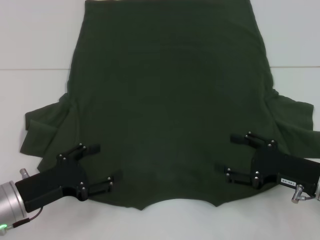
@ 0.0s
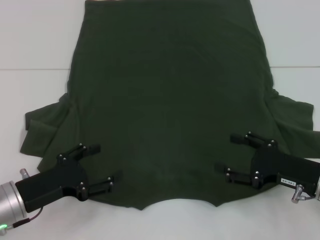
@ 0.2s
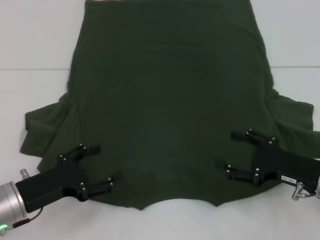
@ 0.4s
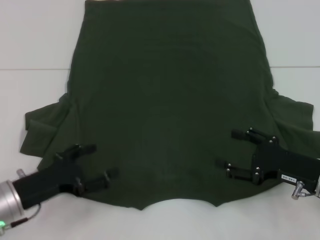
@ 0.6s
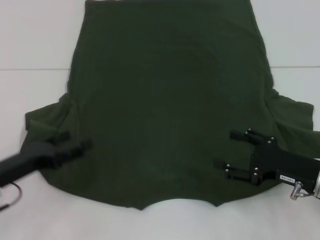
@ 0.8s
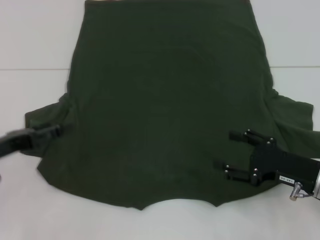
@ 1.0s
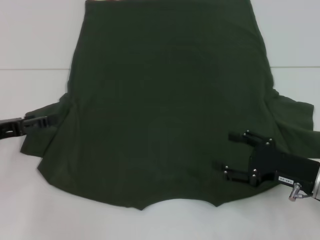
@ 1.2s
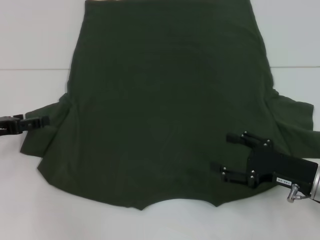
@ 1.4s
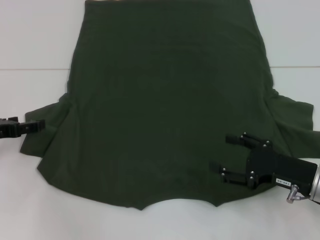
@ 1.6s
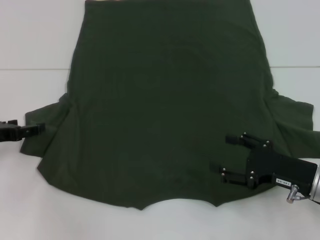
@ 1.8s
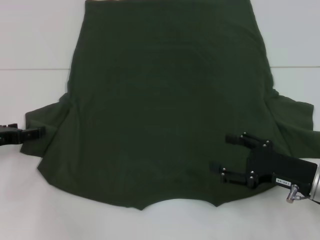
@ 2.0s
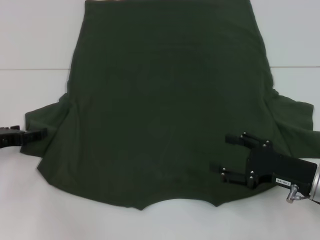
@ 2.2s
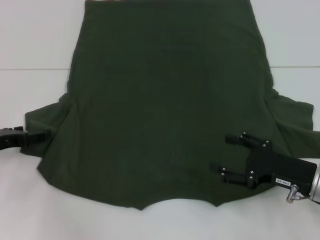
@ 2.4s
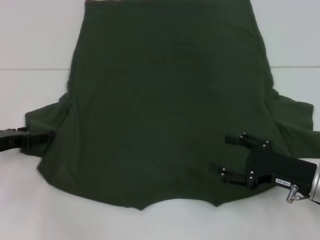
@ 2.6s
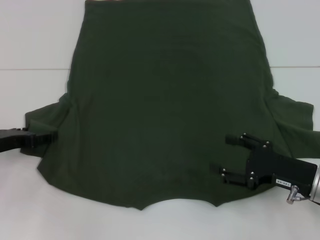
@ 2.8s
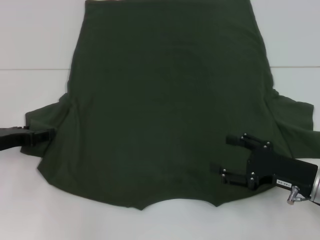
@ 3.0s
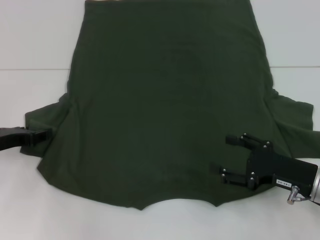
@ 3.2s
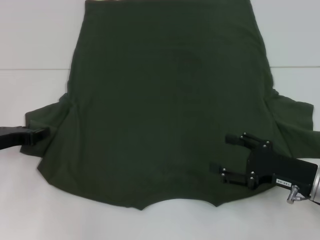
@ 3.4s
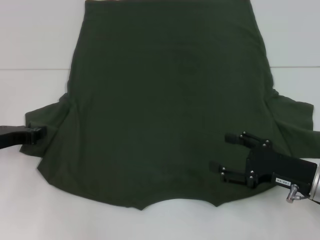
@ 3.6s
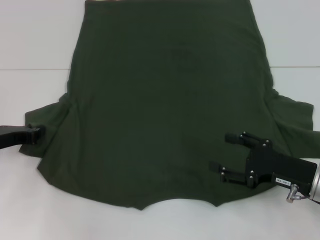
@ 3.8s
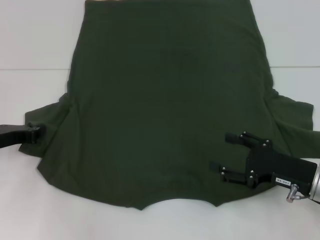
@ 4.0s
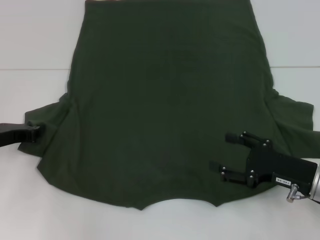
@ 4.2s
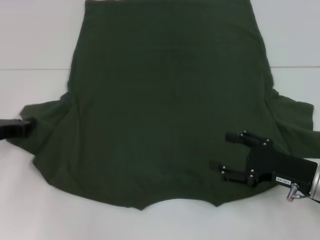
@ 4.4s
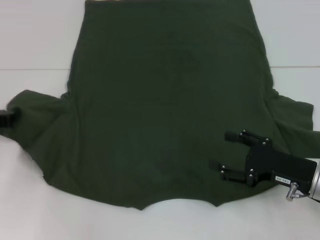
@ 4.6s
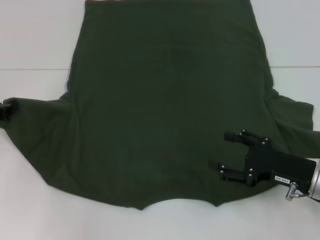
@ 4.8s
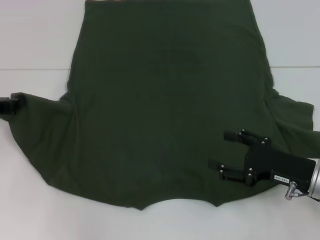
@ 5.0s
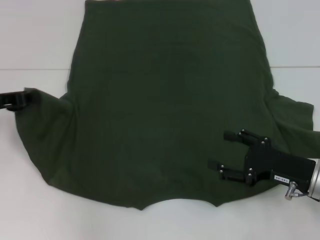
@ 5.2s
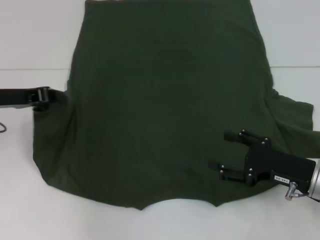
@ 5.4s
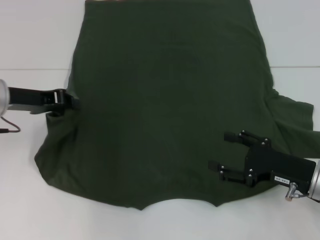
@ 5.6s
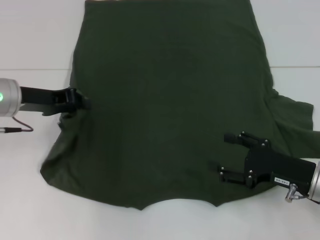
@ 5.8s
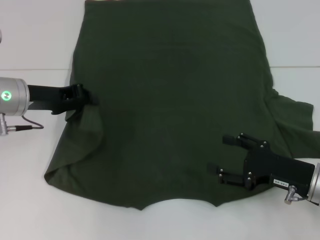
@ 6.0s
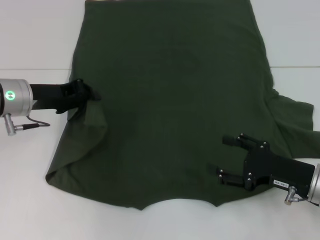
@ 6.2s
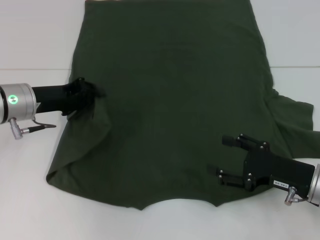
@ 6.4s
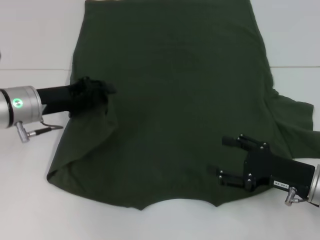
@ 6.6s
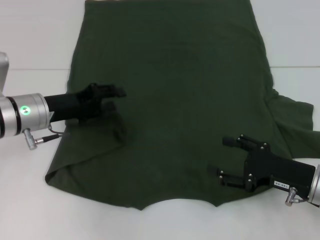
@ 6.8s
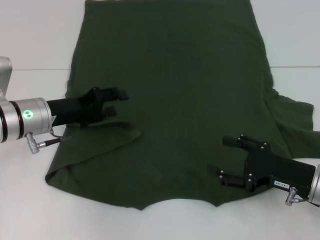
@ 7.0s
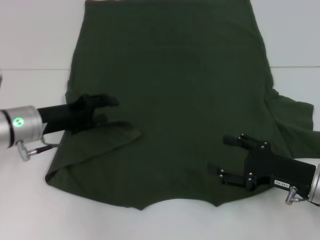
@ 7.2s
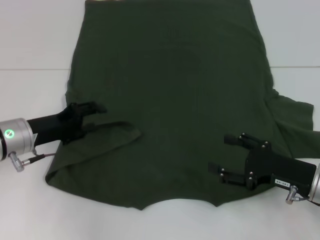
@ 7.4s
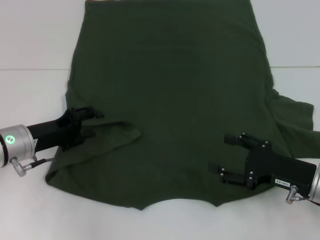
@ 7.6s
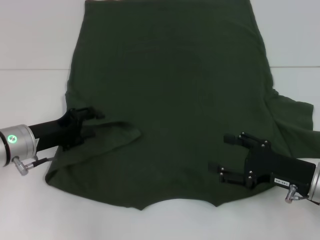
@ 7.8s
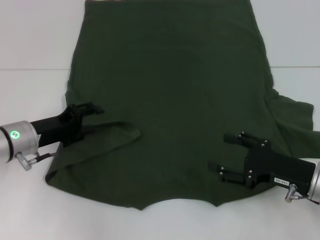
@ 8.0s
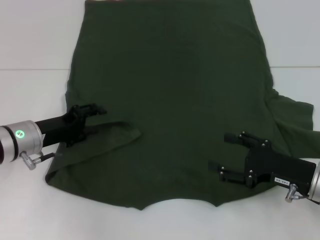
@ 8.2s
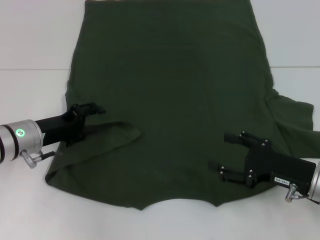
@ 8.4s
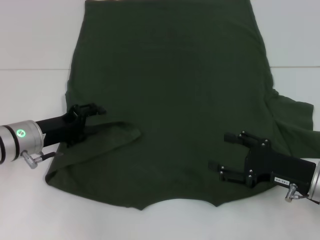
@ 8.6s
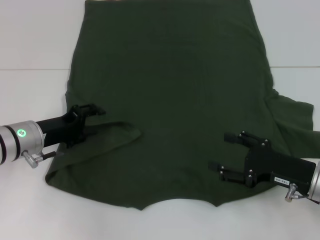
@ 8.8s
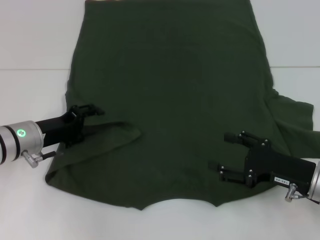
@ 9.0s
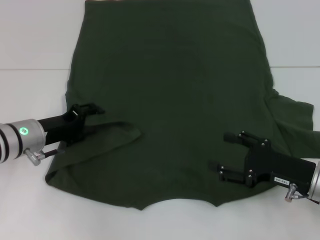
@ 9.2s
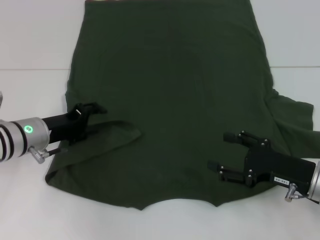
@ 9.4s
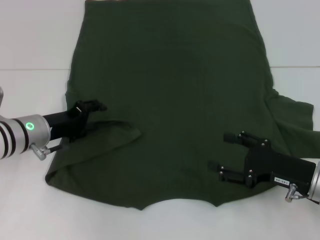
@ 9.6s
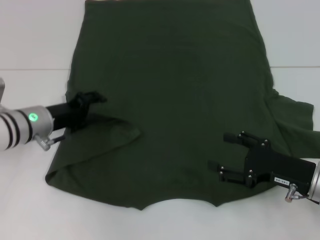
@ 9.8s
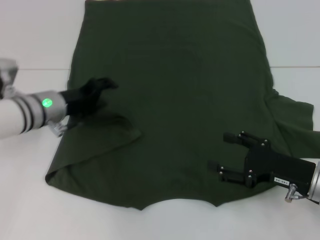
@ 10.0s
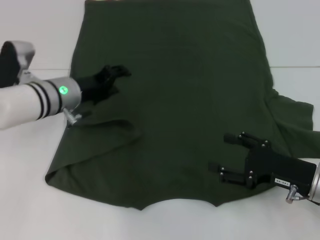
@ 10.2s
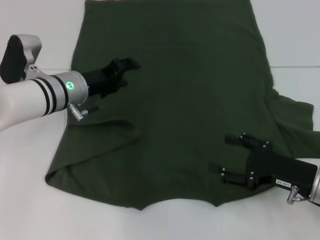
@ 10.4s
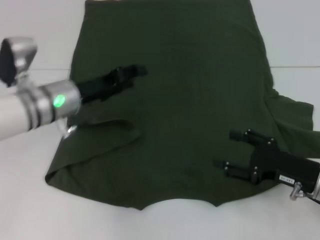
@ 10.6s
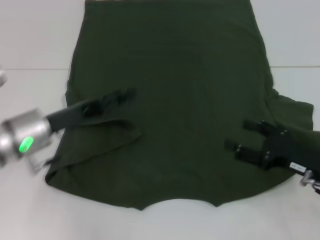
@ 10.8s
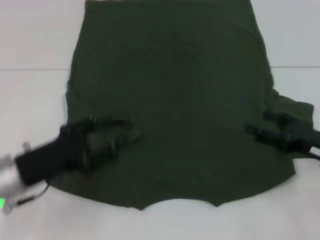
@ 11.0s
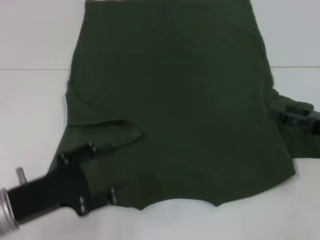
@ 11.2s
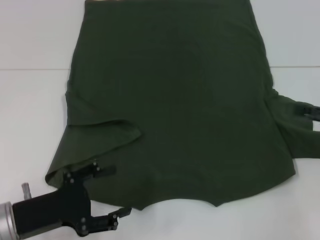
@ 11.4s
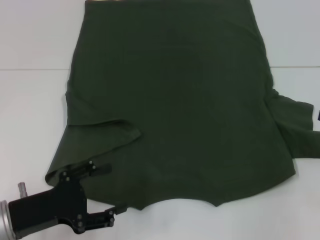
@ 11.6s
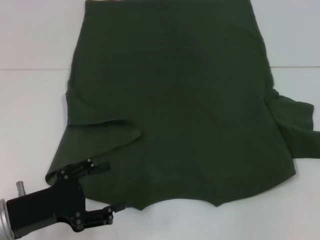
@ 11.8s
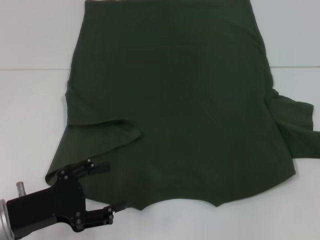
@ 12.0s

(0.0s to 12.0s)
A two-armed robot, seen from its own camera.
Step, 0.0s - 10.0s: Fold the bottom left sleeve with your left hand.
0.0s - 1.6s: The left gripper heads to the left and forward, covering some 10 cm.
1.6s - 3.0s: The grippers make only small movements.
3.0s - 4.4s: The left gripper closes up.
4.4s - 6.0s: The left gripper moves to the right and upward, about 10 cm.
6.0s - 7.6s: The left gripper travels downward by approximately 10 cm, and opens its fingers.
7.6s - 9.0s: The grippers make only small movements.
9.0s - 10.4s: The left gripper shifts approximately 10 cm to the right and forward.
10.4s - 12.0s: The left gripper heads backward, covering approximately 20 cm. Meanwhile the right gripper goes approximately 20 cm to the right, upward and forward.

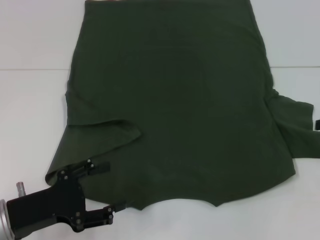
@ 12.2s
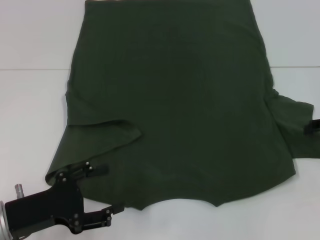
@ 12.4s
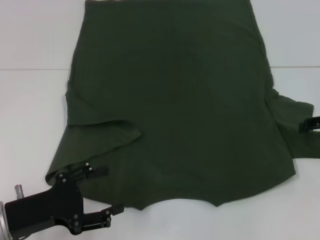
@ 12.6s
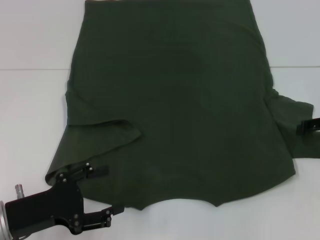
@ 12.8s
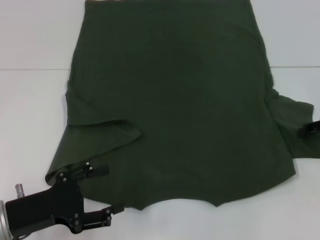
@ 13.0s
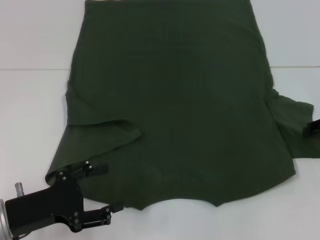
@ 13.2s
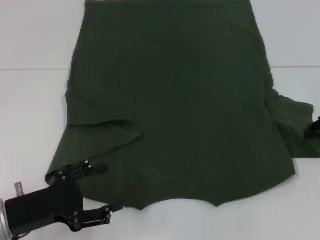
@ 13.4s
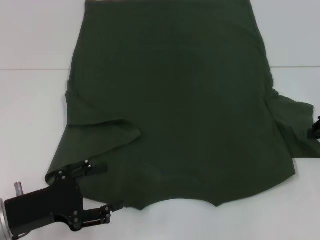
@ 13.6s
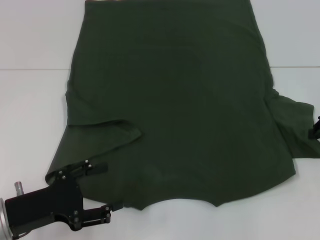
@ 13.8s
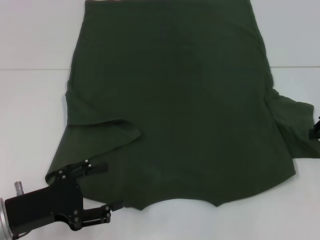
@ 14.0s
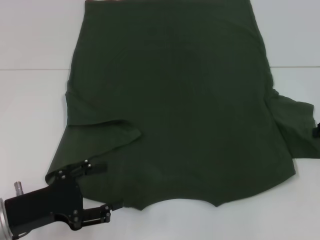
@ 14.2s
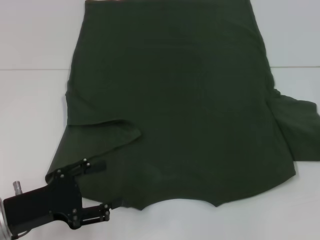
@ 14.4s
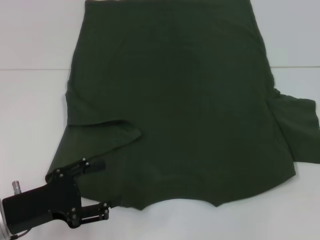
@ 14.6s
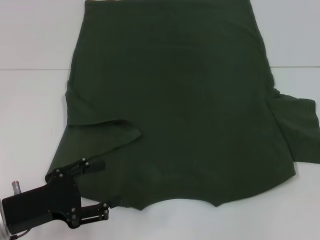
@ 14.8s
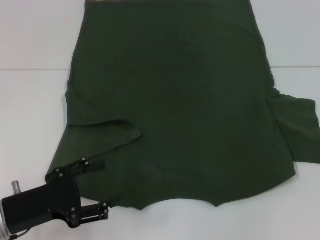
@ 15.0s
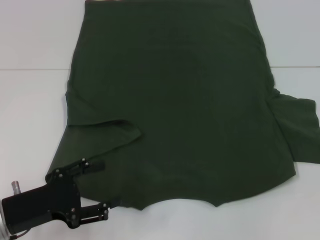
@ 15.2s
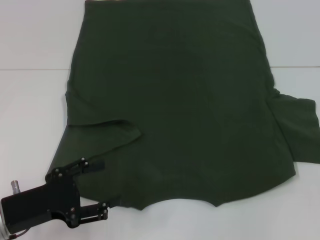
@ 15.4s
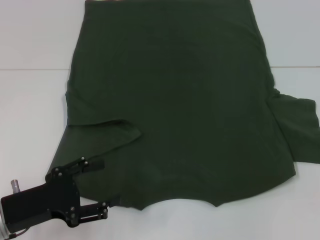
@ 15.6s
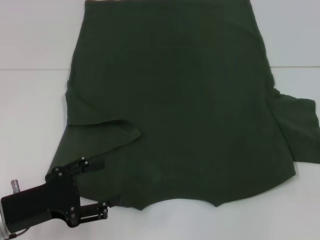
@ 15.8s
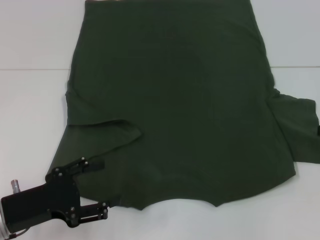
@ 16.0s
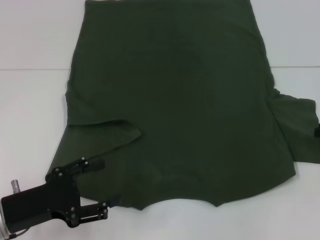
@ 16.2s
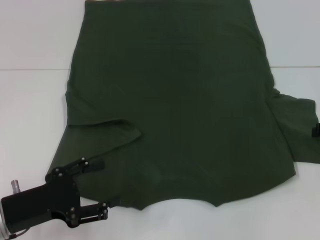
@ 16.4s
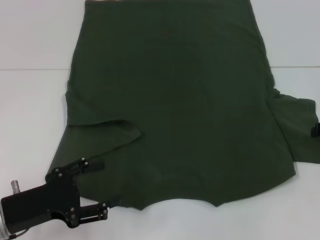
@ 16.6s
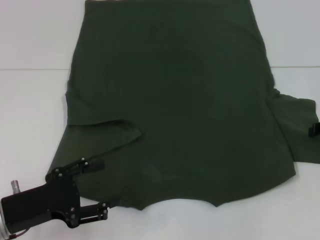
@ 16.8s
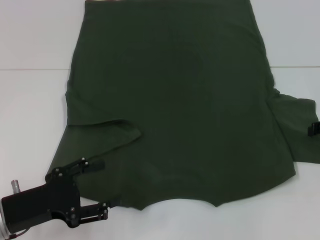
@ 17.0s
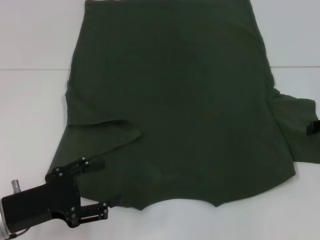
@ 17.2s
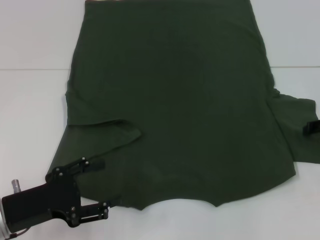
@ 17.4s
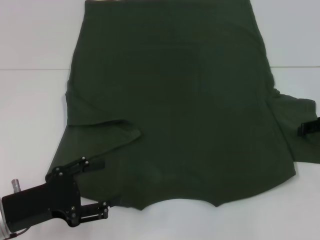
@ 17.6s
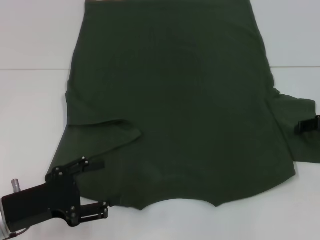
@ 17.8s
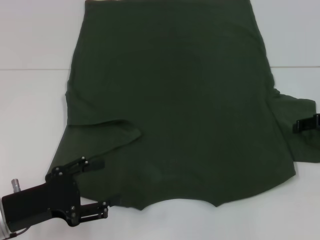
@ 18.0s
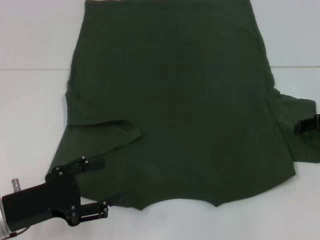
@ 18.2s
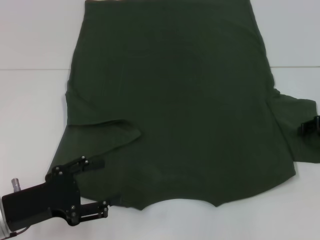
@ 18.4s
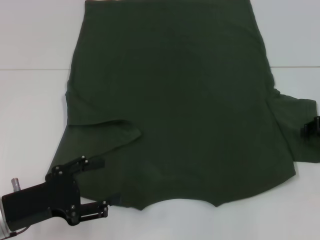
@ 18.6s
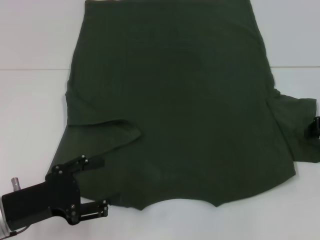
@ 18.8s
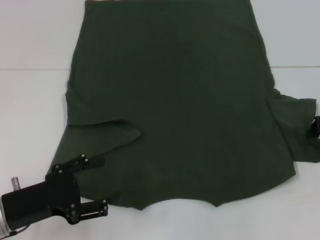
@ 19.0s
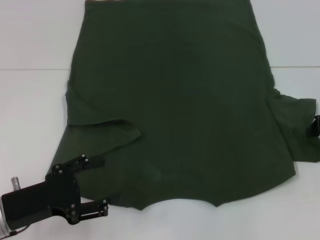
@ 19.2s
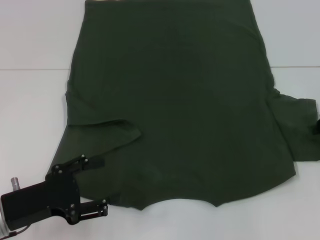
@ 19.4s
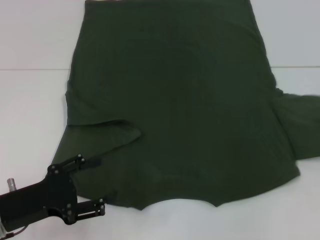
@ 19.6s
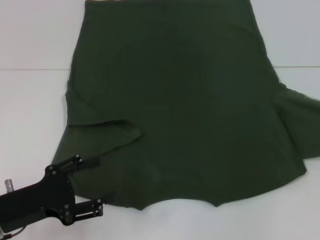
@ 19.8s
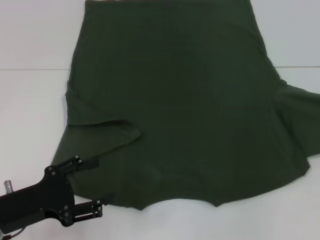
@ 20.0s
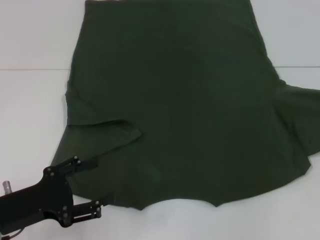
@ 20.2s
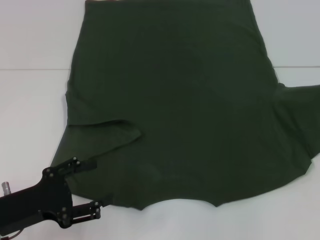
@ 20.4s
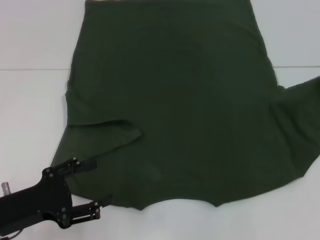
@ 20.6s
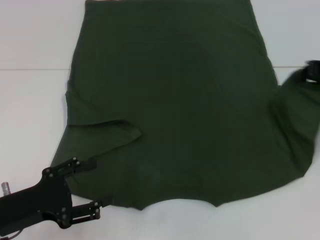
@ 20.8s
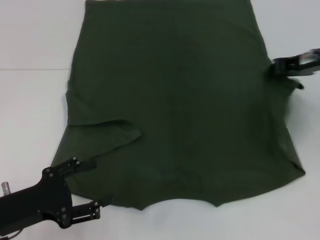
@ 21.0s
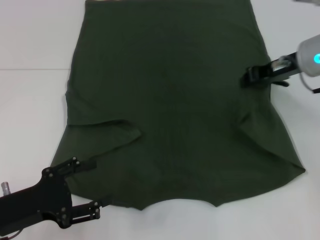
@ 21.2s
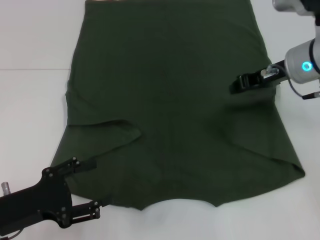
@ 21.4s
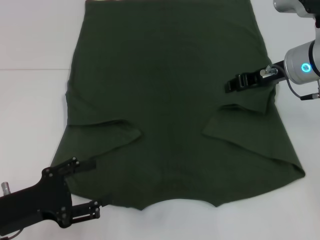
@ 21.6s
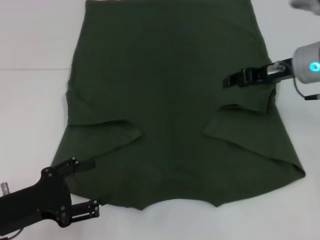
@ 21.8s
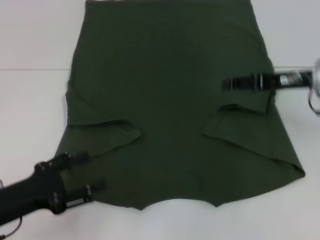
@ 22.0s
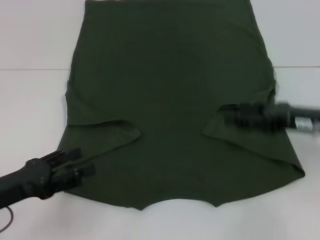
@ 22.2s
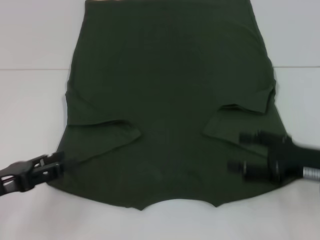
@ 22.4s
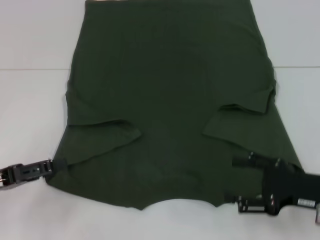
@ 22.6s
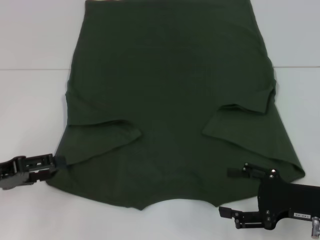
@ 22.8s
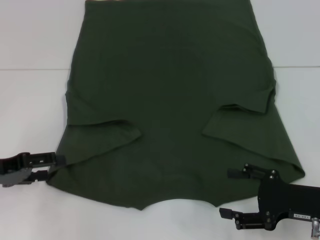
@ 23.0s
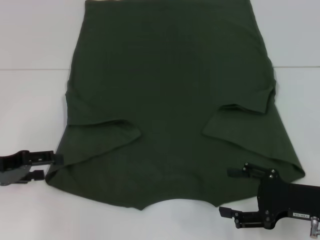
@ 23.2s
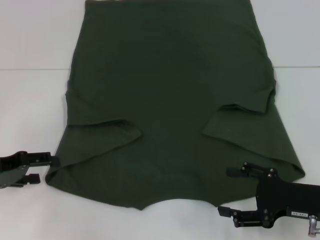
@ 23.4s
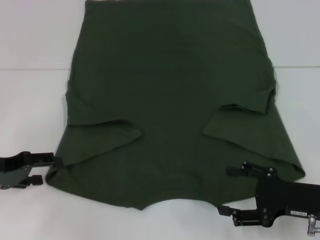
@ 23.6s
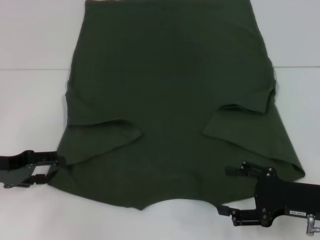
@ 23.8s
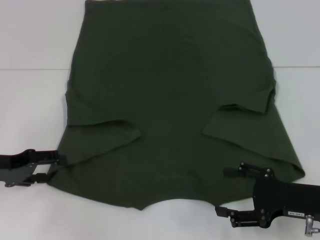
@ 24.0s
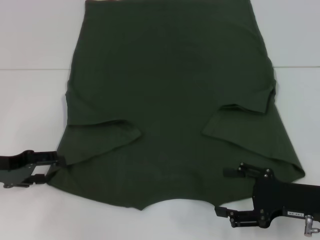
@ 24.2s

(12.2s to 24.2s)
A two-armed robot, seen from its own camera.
Step, 12.2s - 21.4s: Fold the bottom right sleeve with your right hand.
13.8s - 15.2s: The right gripper changes place by about 5 cm.
16.6s - 18.2s: The grippers move only a little.
18.2s - 19.8s: The right gripper moves approximately 5 cm, and closes up.
19.8s - 21.2s: The right gripper goes some 15 cm to the left.
21.2s - 22.6s: The right gripper travels backward and downward by roughly 20 cm, and opens up, while the left gripper moves to the left, some 5 cm.
22.6s - 24.2s: The left gripper heads forward, covering roughly 5 cm.
